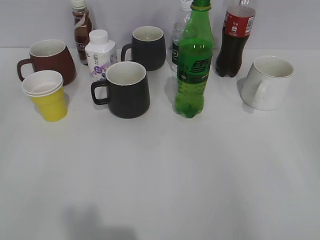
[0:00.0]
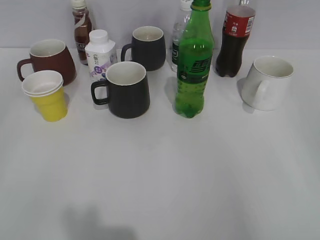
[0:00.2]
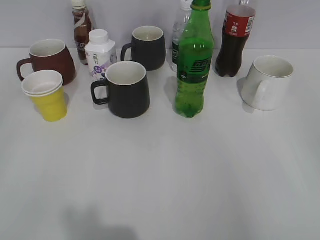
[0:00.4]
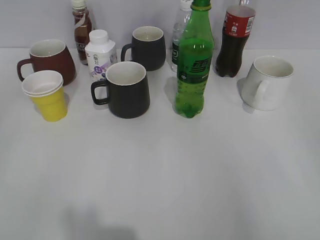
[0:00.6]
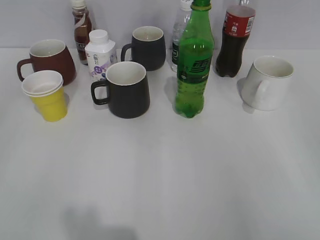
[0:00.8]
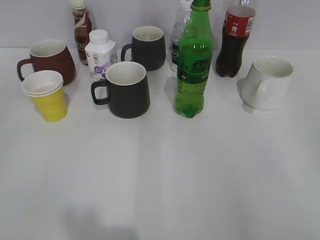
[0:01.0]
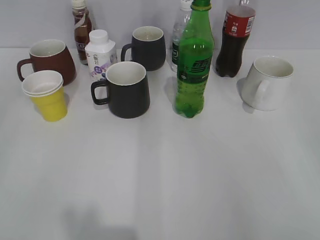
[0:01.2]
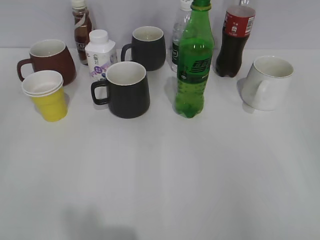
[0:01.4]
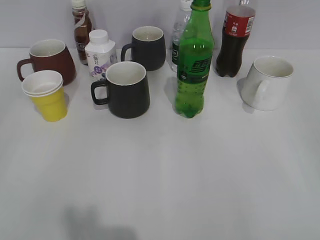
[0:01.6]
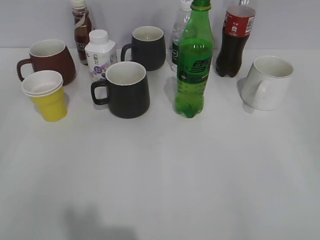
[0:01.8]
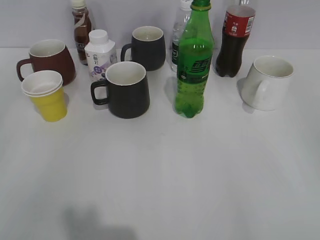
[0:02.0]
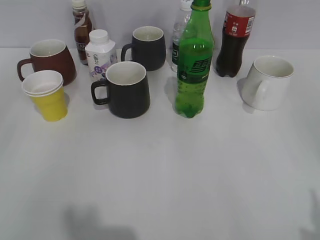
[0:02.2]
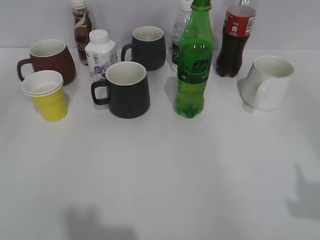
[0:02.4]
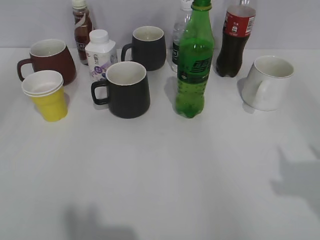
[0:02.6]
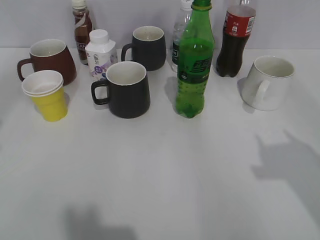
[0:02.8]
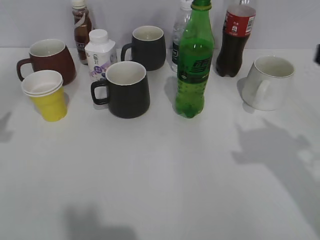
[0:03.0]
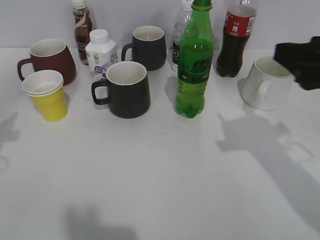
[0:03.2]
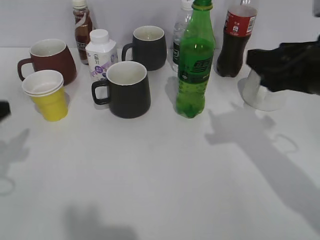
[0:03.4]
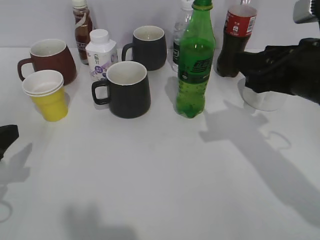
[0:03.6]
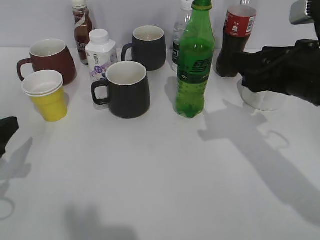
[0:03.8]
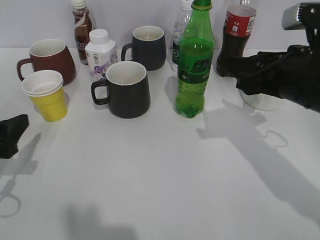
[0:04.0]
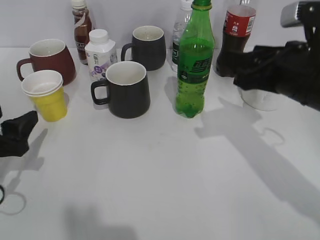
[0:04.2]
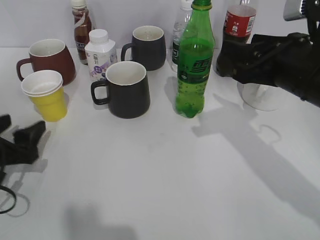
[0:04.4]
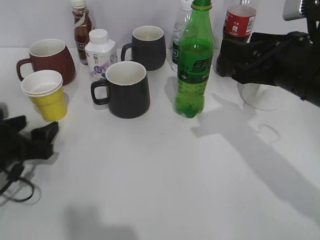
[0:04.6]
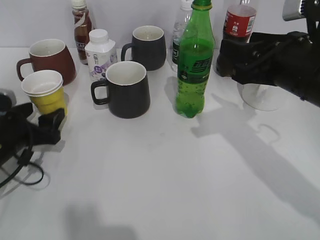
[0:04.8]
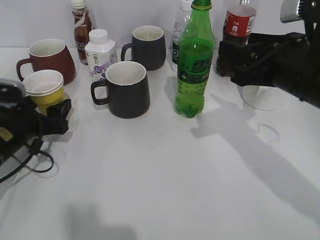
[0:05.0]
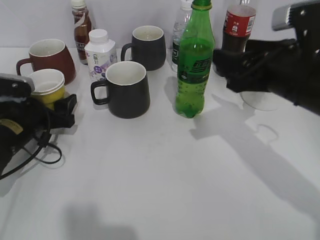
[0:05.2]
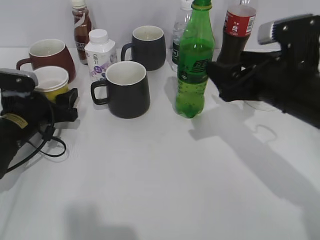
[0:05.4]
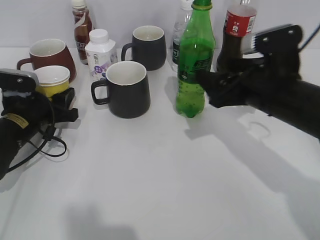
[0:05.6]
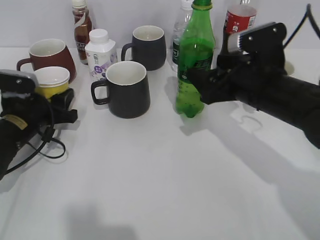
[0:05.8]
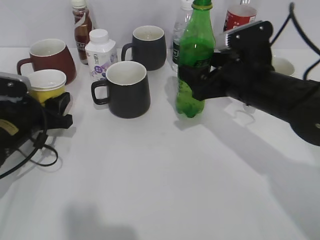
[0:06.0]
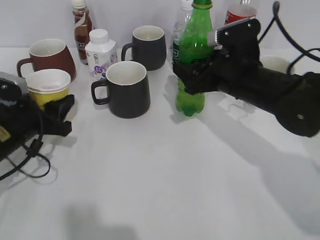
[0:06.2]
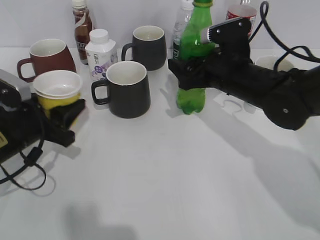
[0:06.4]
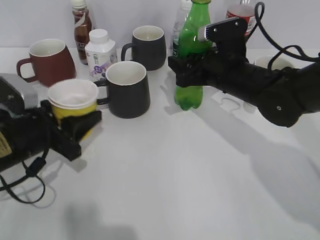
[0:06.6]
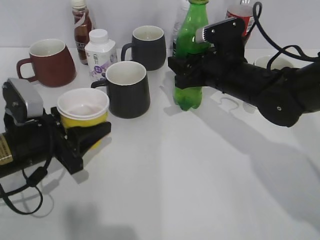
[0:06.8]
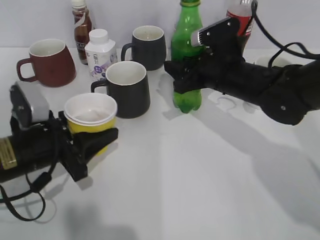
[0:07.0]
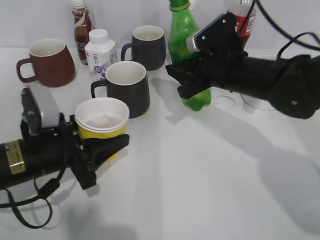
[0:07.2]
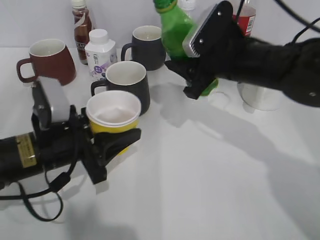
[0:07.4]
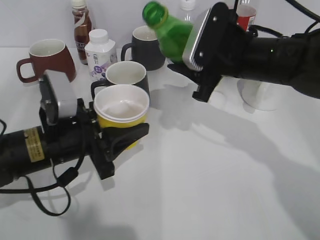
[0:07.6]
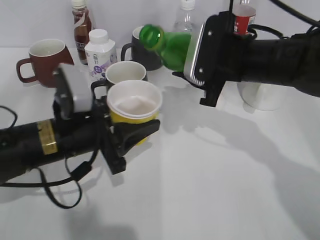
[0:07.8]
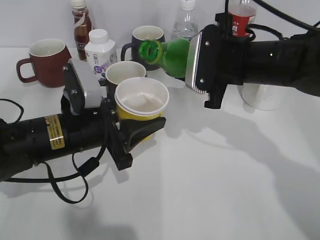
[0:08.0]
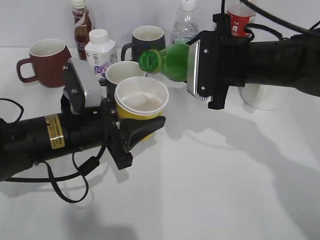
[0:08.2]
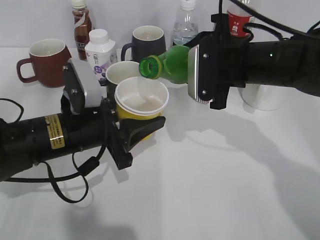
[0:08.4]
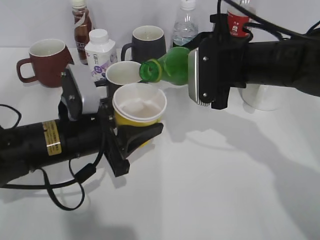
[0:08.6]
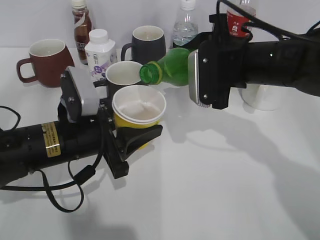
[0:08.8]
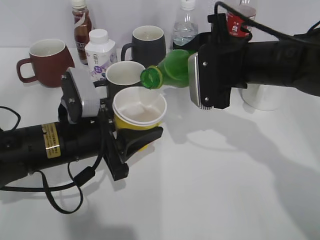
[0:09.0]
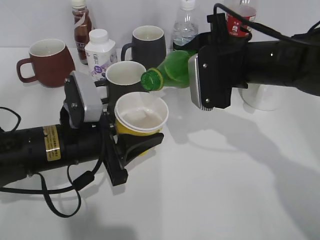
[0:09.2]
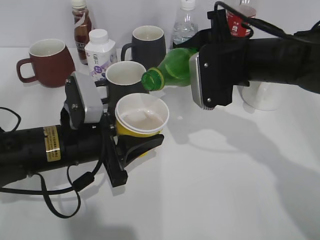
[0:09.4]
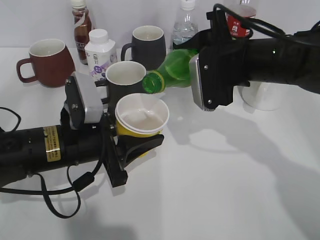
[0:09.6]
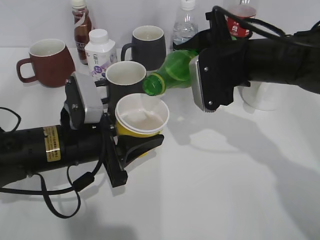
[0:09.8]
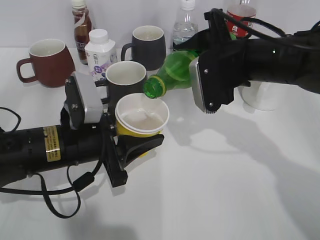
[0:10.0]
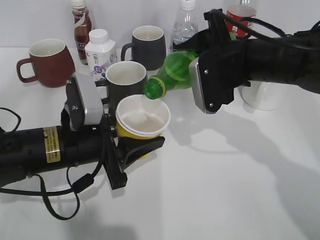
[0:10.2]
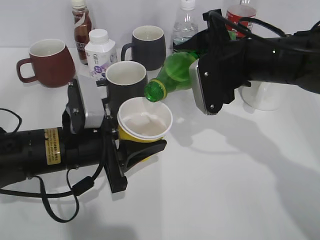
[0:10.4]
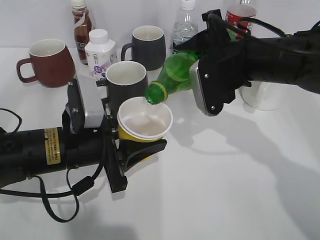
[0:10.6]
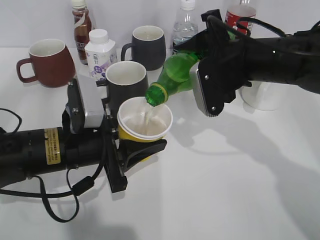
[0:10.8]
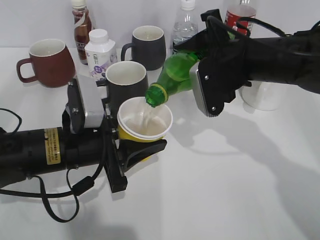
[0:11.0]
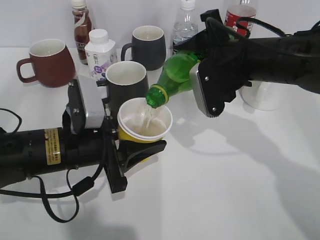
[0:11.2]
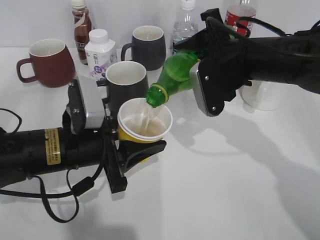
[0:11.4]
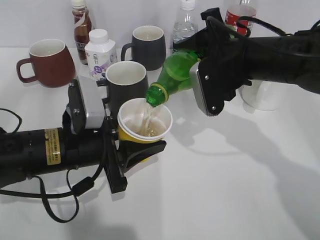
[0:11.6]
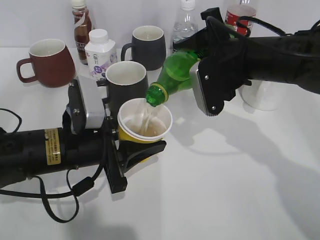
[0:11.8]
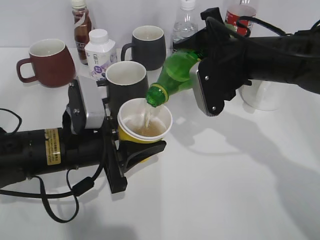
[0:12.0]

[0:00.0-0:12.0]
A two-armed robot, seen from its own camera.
Step, 0:02.2 to 0:06.6: Grasp the bottle with sprite with right gripper.
0:01.6 to 0:03.0: The right gripper goes some 15 cm forward.
0:03.0 to 0:04.4: The left gripper moves downward, about 15 cm, while the right gripper moves forward, downward and to the left, approximately 15 cm.
0:04.4 to 0:06.0: The right gripper travels downward by some 5 cm, and opens up. Meanwhile the left gripper shifts about 10 cm forward, and closes.
0:06.0 to 0:07.6: The left gripper moves to the right and backward, approximately 10 cm; the right gripper ends up roughly 5 cm from where it was, and closes up.
0:09.0 to 0:12.0: The grippers make only small movements.

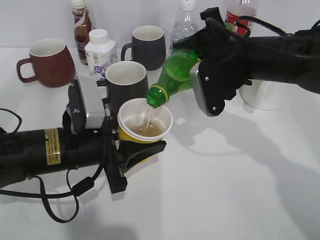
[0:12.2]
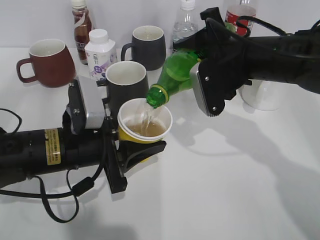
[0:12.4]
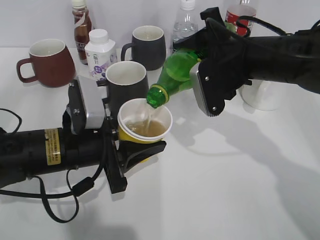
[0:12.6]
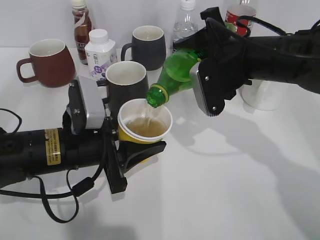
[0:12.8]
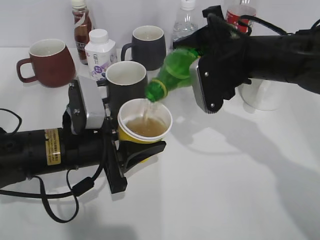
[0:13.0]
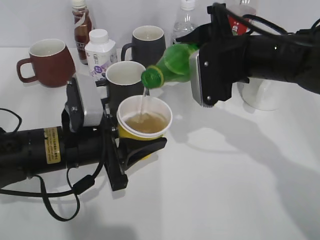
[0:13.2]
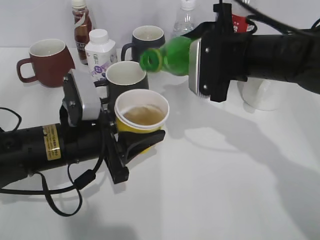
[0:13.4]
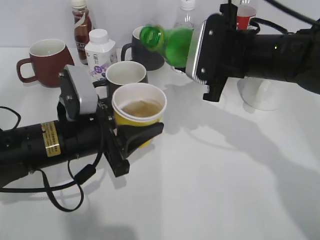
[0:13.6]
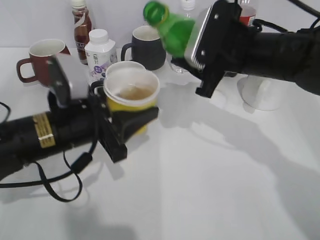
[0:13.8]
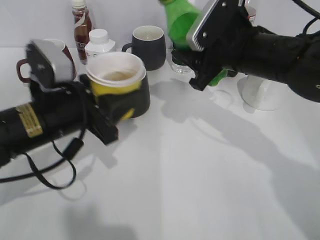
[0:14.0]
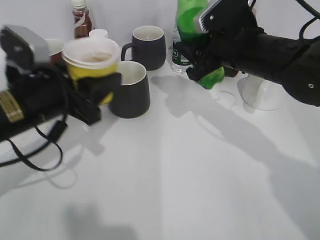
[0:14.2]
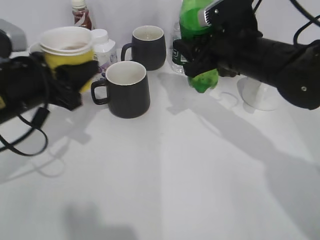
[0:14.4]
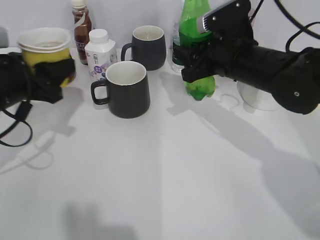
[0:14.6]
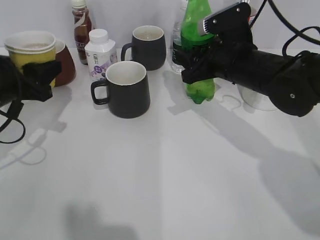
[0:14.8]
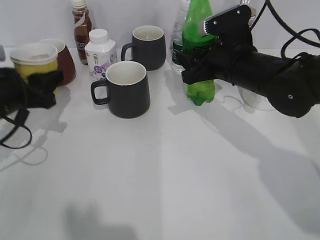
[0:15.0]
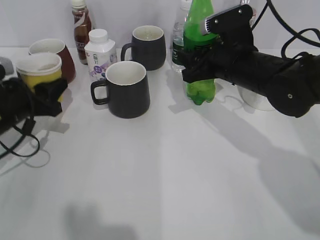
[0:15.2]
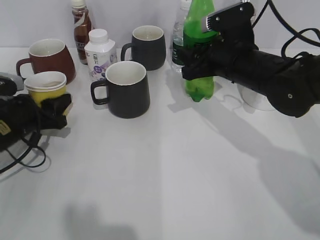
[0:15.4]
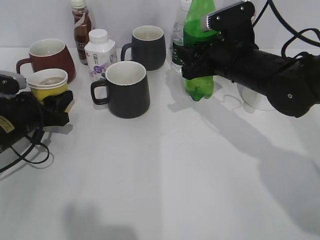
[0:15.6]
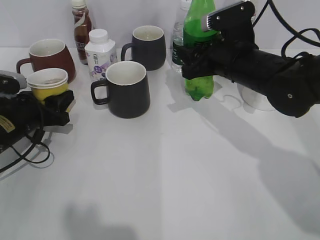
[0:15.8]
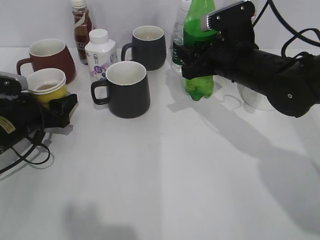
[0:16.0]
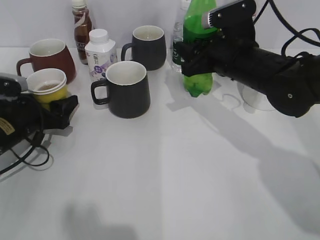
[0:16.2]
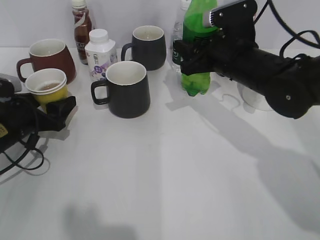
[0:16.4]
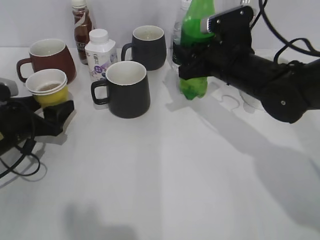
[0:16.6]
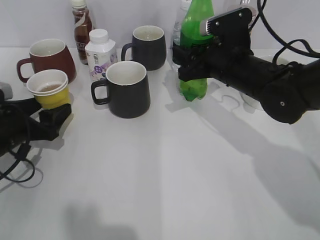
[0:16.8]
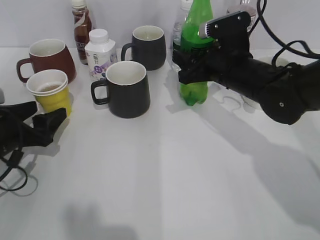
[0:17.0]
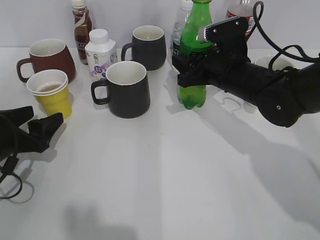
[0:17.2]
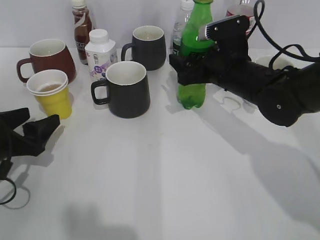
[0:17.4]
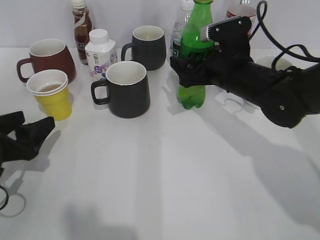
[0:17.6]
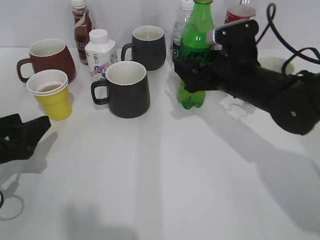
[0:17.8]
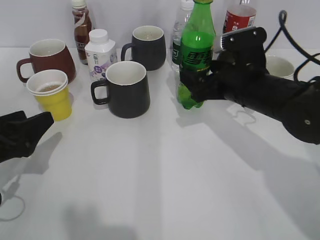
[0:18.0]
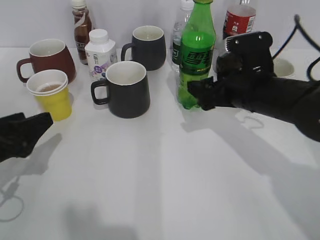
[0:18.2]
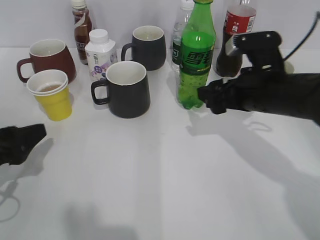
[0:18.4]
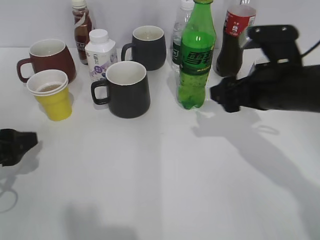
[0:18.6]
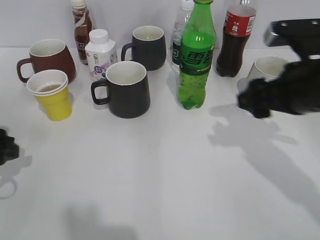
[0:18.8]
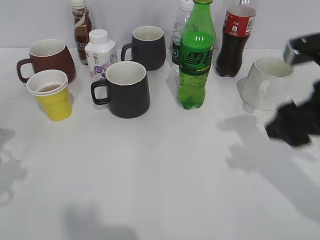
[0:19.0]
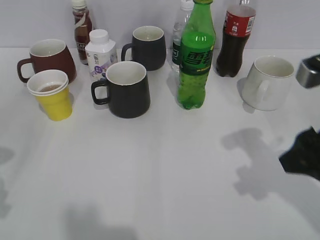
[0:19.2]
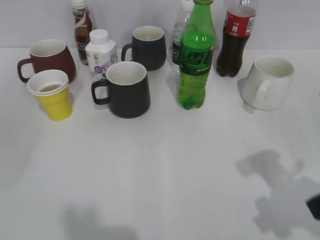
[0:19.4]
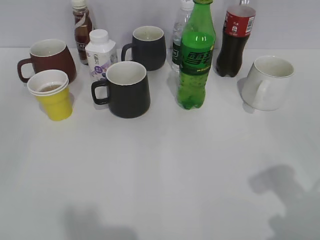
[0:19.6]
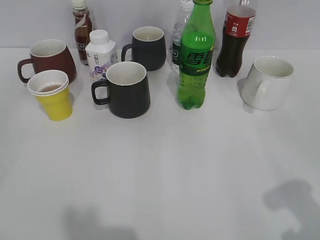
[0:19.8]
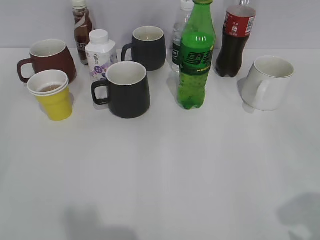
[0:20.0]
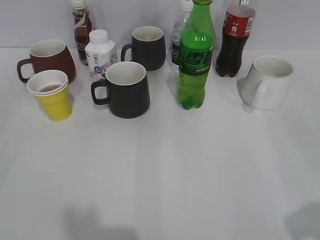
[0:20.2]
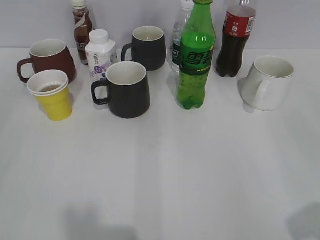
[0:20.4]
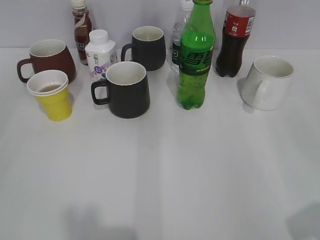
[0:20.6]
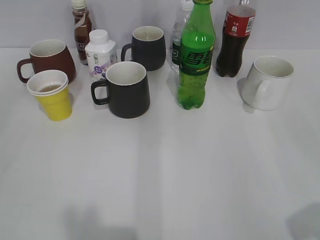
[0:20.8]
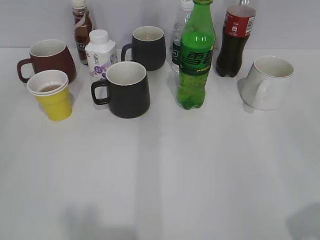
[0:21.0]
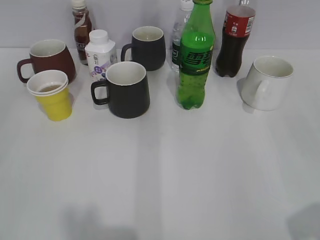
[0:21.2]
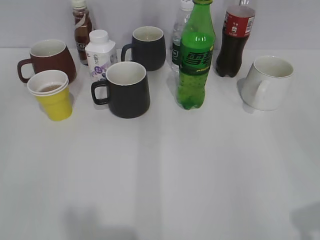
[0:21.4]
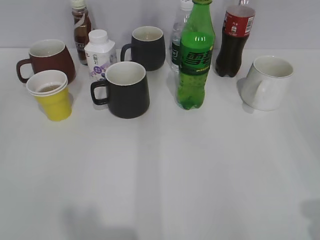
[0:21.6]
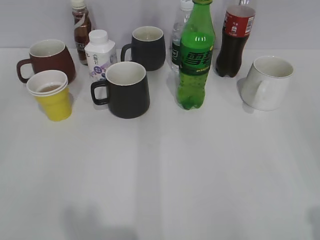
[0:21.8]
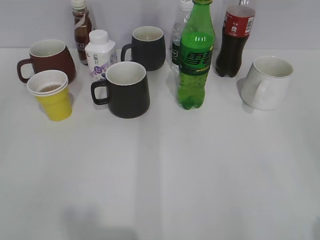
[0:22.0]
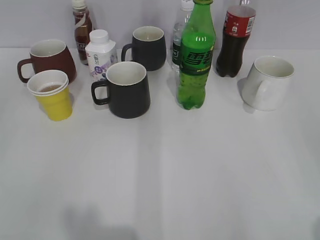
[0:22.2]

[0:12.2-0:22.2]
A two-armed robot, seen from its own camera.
Step, 0:13.6 to 0:15.8: Place the yellow paper cup on the table with left gripper.
Step, 0:16.0 to 0:18.0: Place the sprite bottle on the table with right gripper.
0:13.6 to 0:15.0: The left gripper moves to the left and forward, approximately 15 cm, while the right gripper moves approximately 5 cm.
0:15.0 to 0:16.4: The left gripper is displaced downward by about 5 cm, and opens.
0:16.4 to 0:18.0: The left gripper shifts about 10 cm backward; the right gripper opens up.
0:18.0 to 0:19.4: The right gripper moves backward, to the right and upward, about 20 cm, and closes; the left gripper travels upward and backward by about 15 cm.
0:19.4 to 0:20.8: The right gripper shifts some 15 cm backward and to the right.
